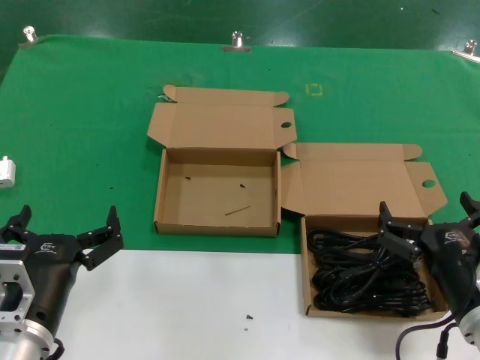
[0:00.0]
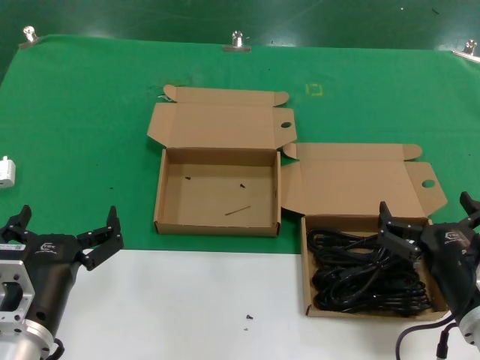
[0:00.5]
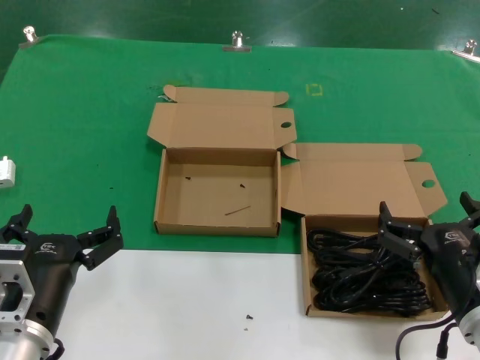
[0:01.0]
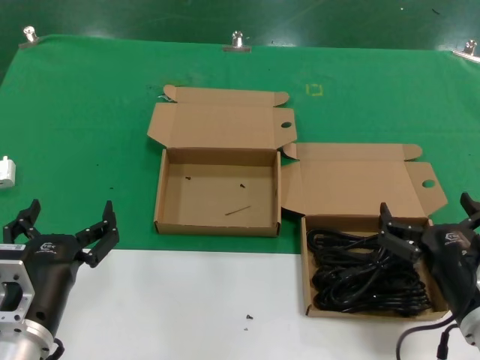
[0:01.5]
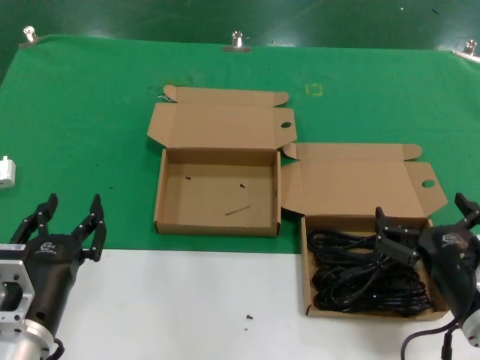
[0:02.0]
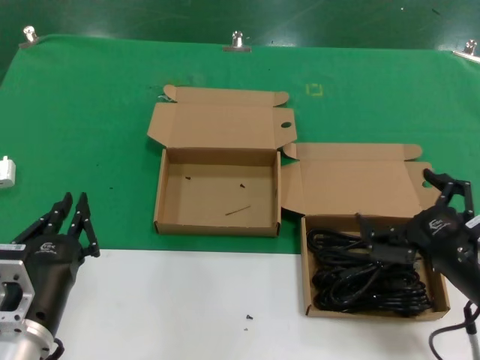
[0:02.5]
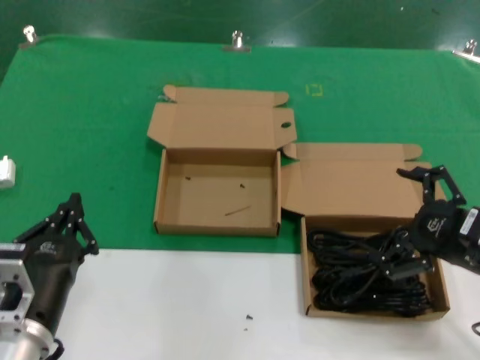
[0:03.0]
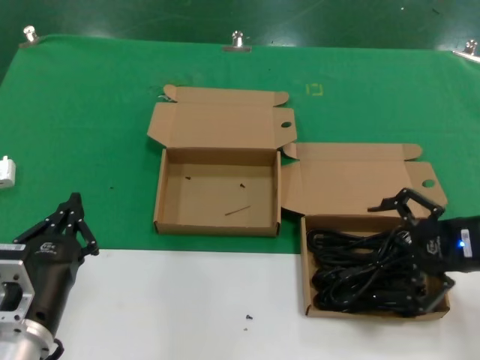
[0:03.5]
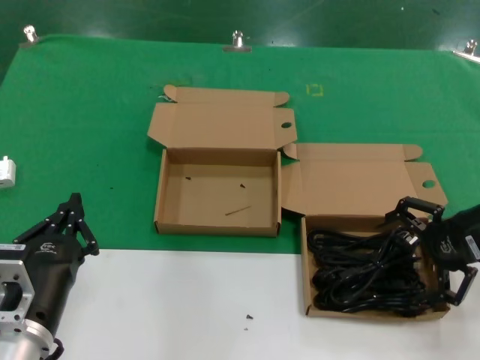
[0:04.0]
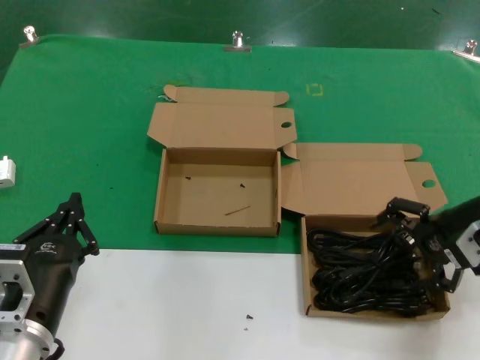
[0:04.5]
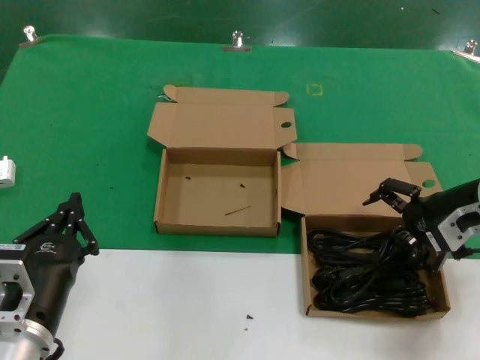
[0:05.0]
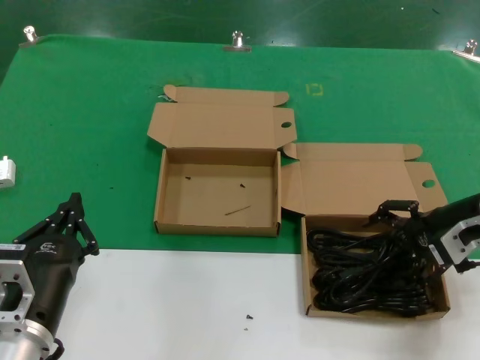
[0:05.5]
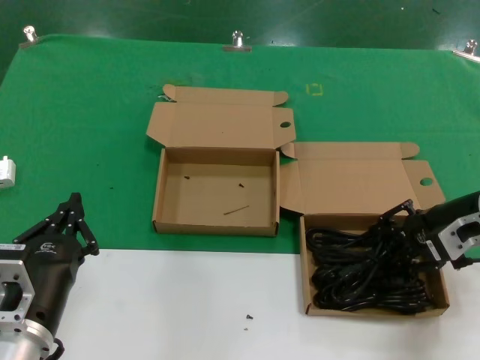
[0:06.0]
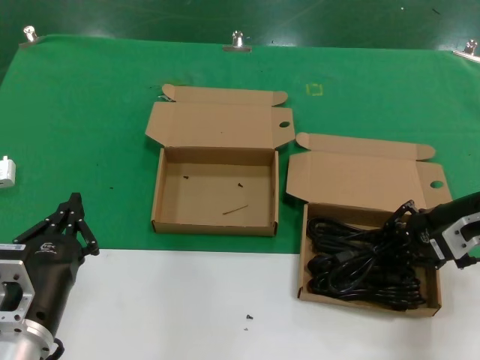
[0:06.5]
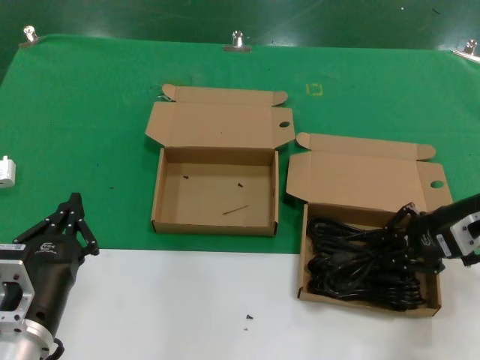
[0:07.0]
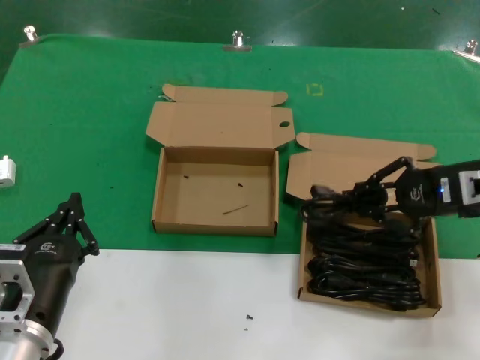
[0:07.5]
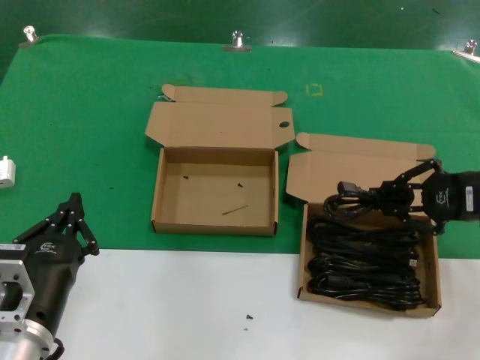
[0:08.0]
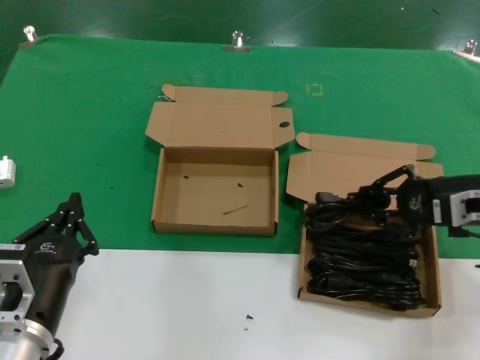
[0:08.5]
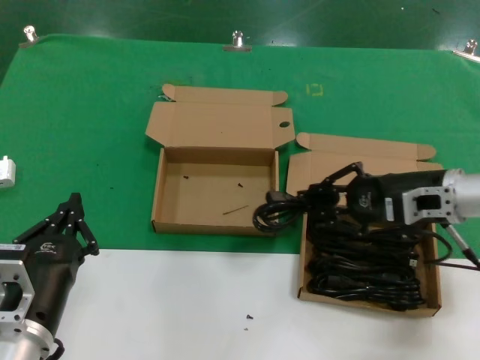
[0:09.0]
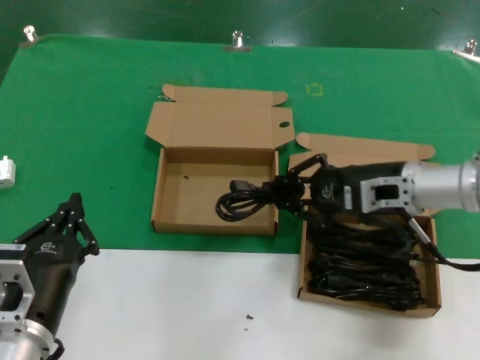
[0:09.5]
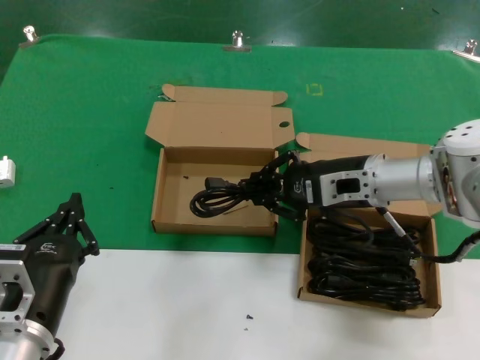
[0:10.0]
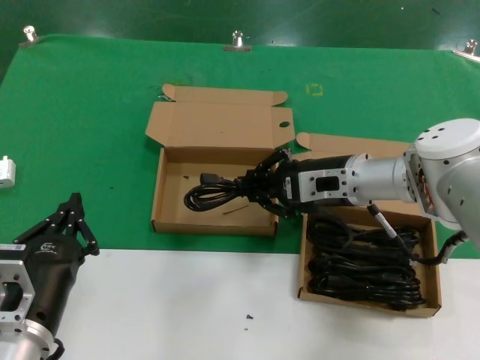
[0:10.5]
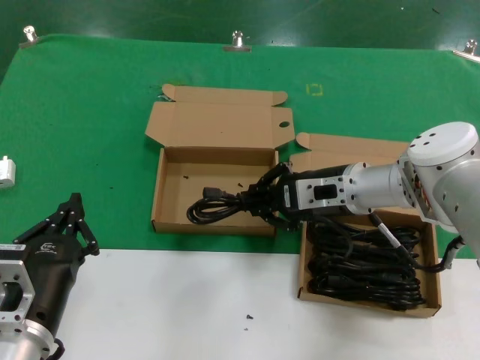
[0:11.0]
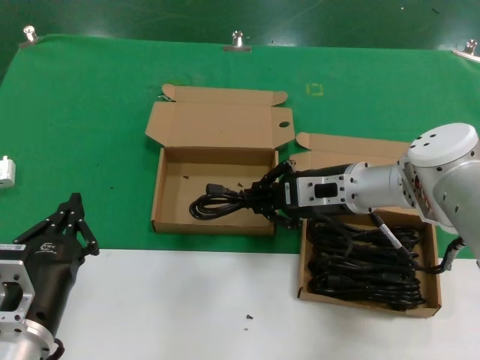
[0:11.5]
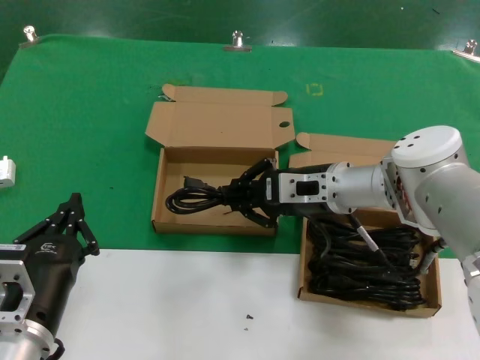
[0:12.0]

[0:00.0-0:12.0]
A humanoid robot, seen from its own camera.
Task of the whole recording: take the parts from the box containing them and put them into an empty box.
Step, 0:00.0 to 0:06.0: Grasp the data cable.
0:00.0 to 0:02.0: Both hands stay about where they are.
0:02.0 to 0:04.0: The right hand goes approximately 25 cm forward, upward and to the right.
0:04.0 to 0:06.0: The right hand shifts by about 5 cm.
0:06.0 to 0:08.0: The right hand changes place by some 5 cm.
0:08.0 to 0:10.0: The right hand moves to the left, approximately 20 cm.
0:10.0 to 0:12.0: The right hand travels to the left by some 5 cm.

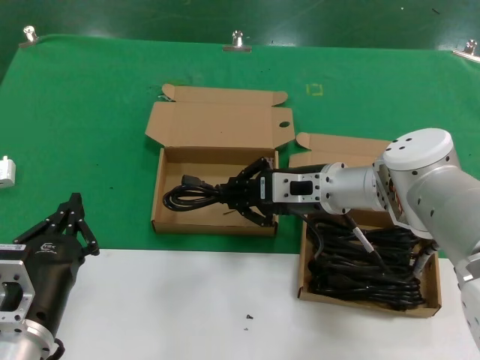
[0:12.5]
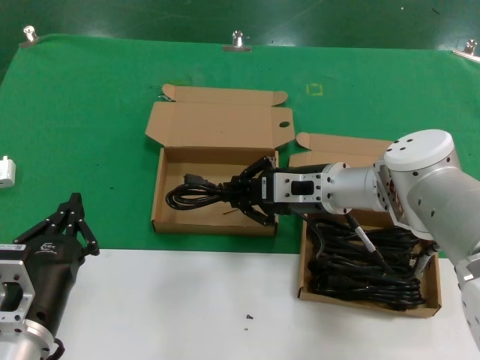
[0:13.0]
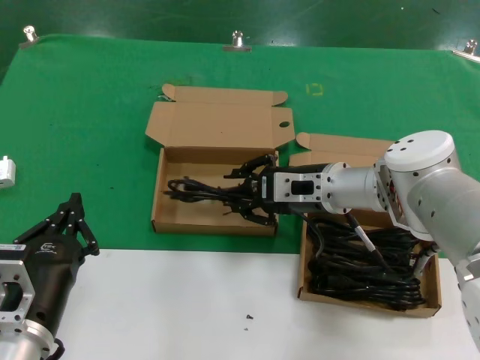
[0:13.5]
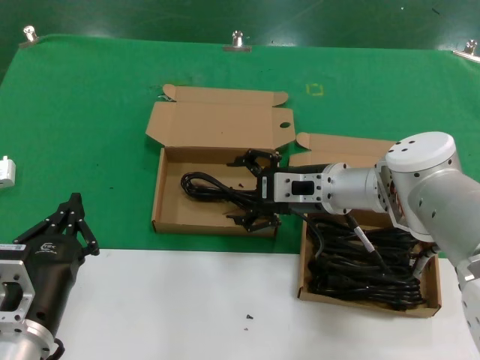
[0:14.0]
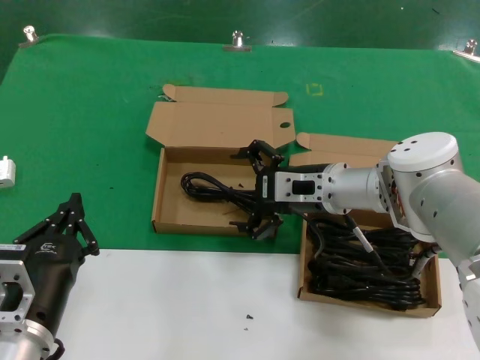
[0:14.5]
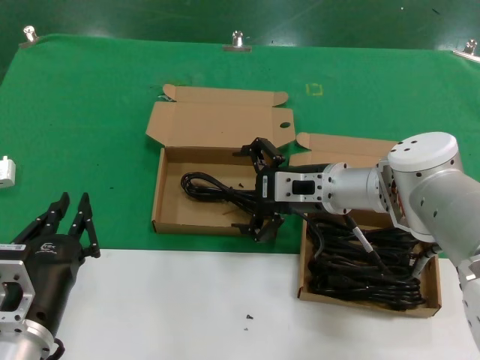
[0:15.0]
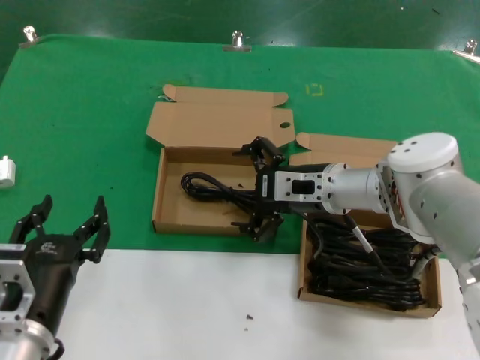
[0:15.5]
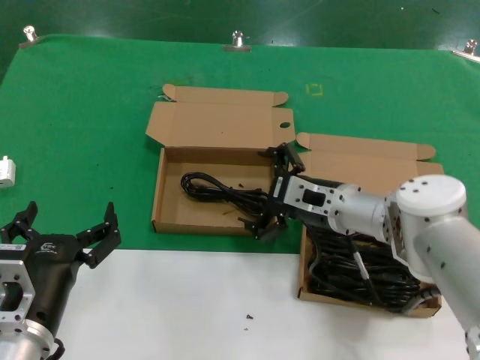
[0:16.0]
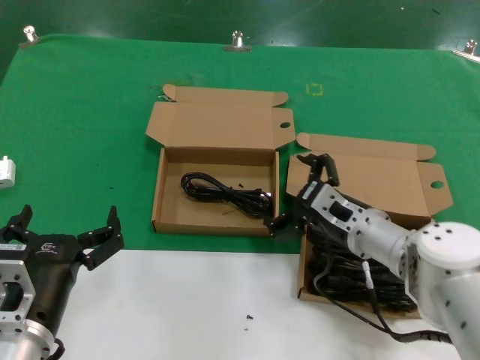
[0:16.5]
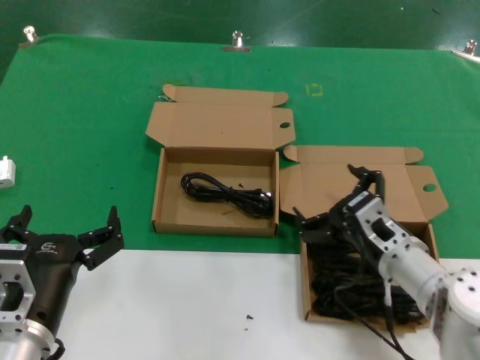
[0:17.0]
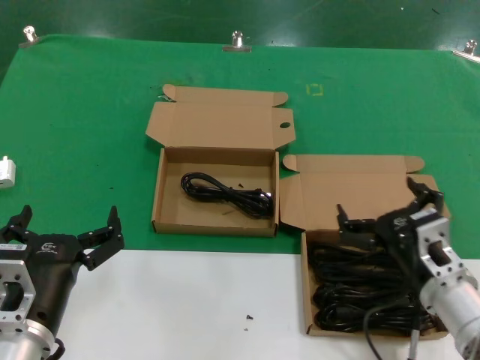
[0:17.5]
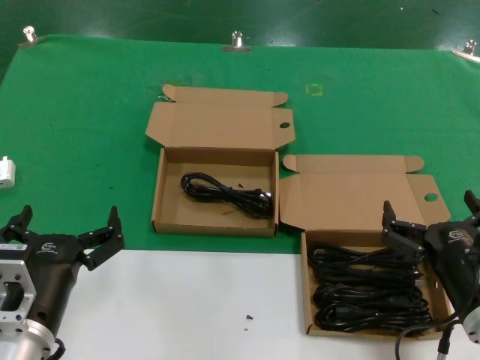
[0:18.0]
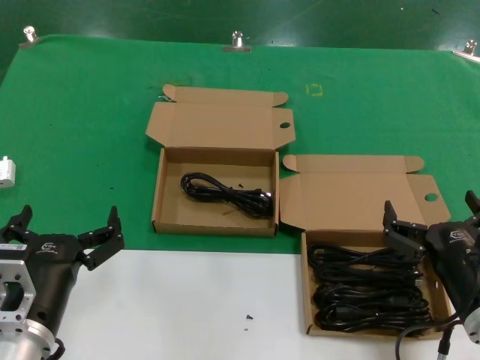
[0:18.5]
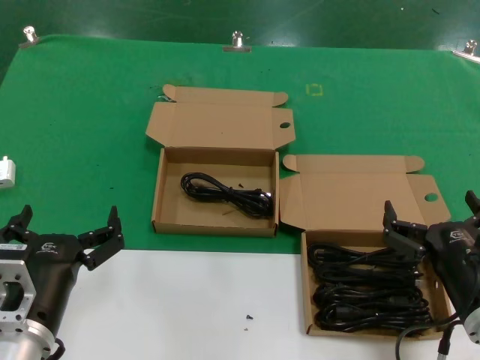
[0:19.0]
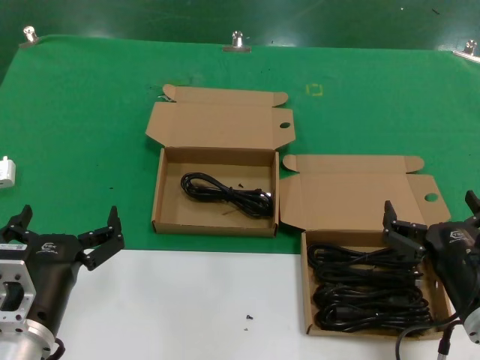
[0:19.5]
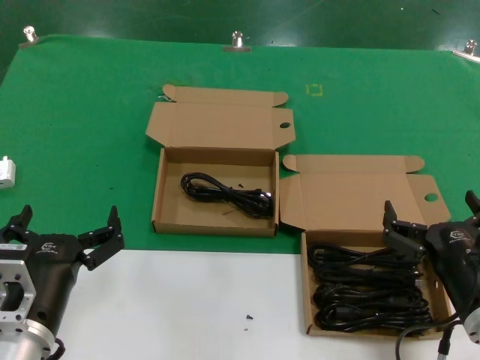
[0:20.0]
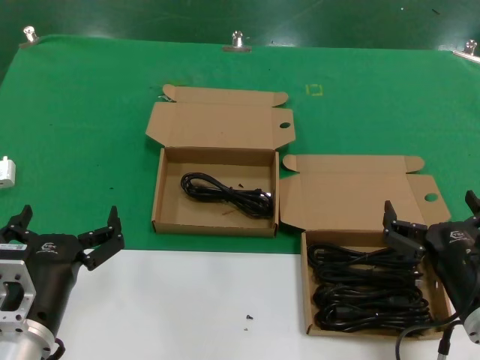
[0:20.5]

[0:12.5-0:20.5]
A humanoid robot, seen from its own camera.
Task of the whole recording: take the parts from the box containing them and put them into an empty box.
0:12.5 to 0:14.5: The two hands keep their place.
0:14.5 to 0:16.5: The right hand is displaced downward by some 10 cm.
0:16.5 to 0:18.5: The right hand shifts approximately 20 cm backward and to the right.
0:18.5 to 0:20.5: Neither hand changes place.

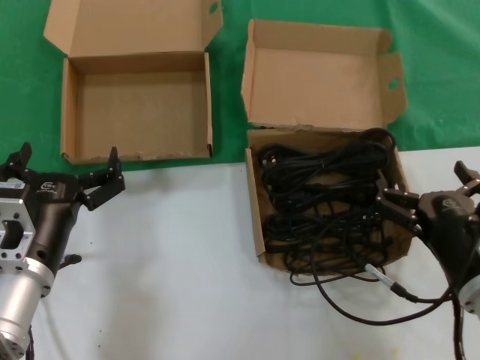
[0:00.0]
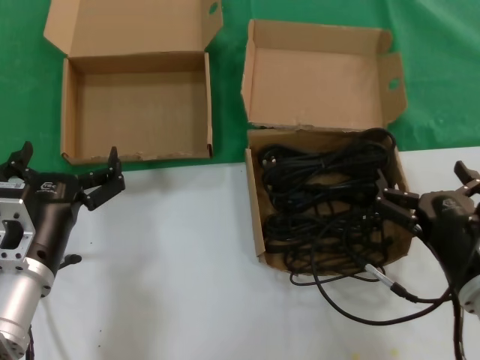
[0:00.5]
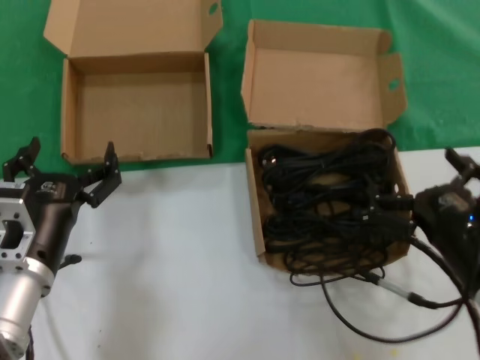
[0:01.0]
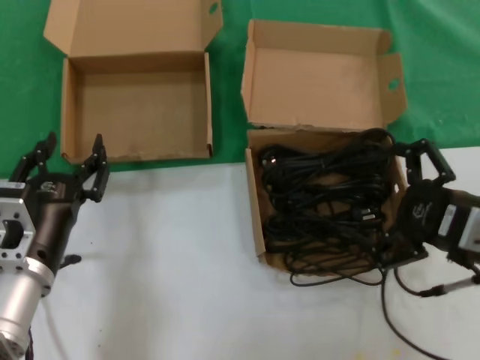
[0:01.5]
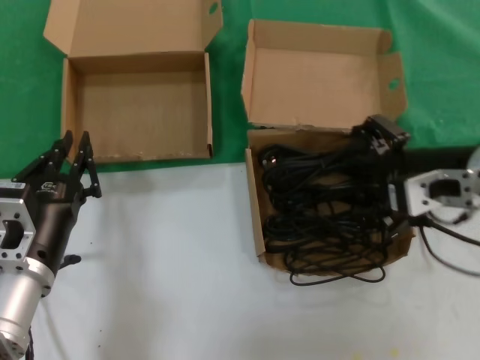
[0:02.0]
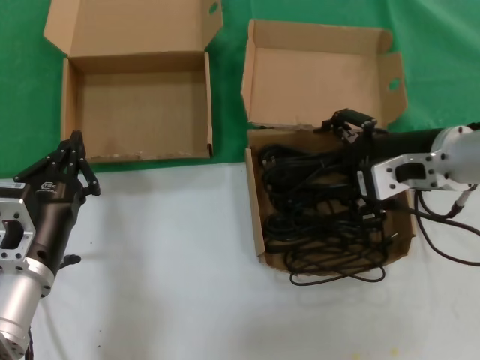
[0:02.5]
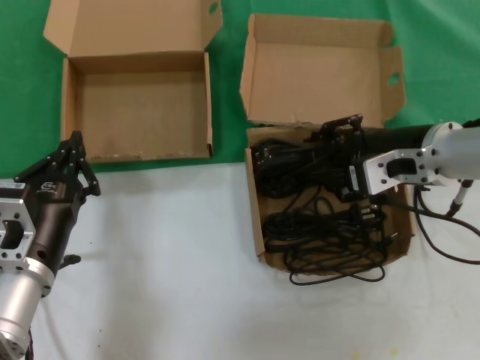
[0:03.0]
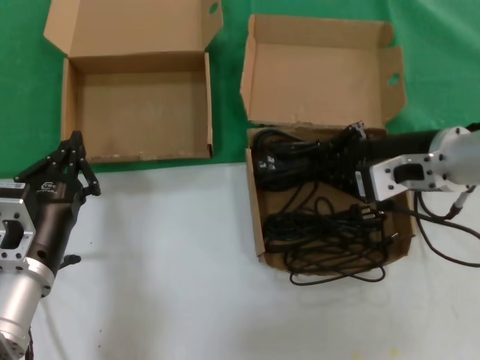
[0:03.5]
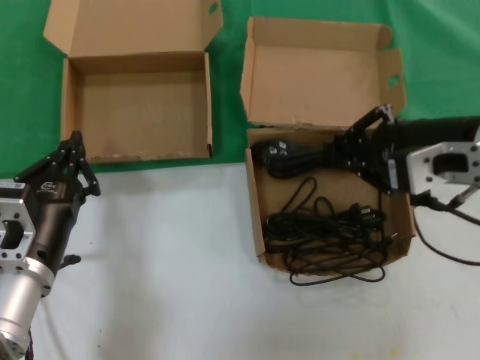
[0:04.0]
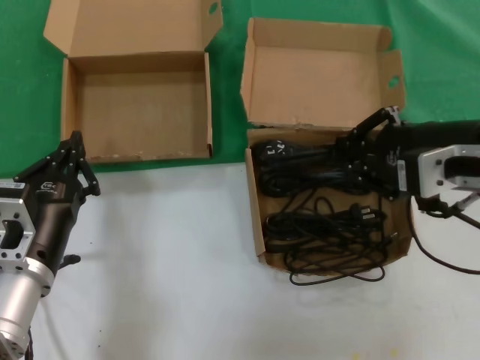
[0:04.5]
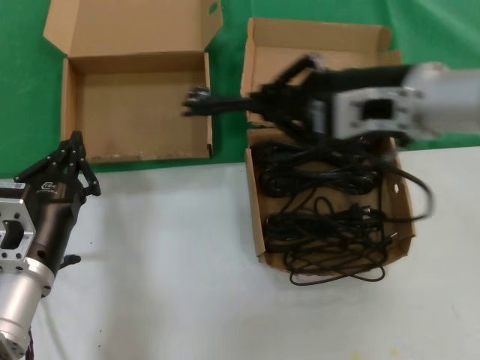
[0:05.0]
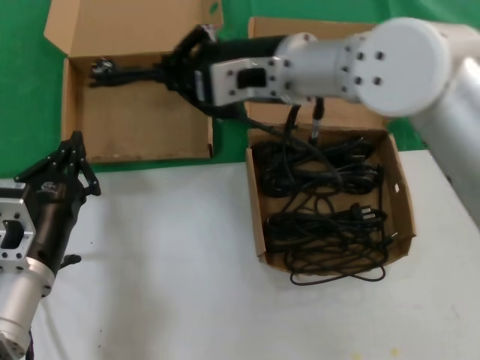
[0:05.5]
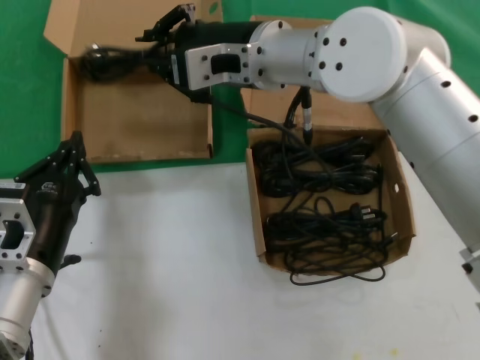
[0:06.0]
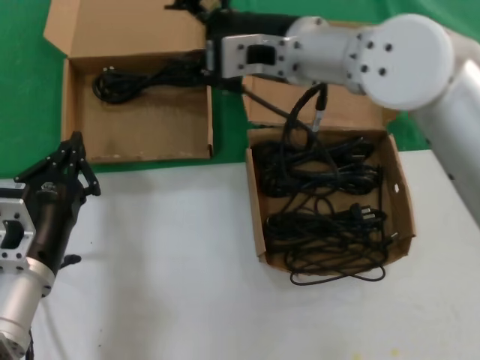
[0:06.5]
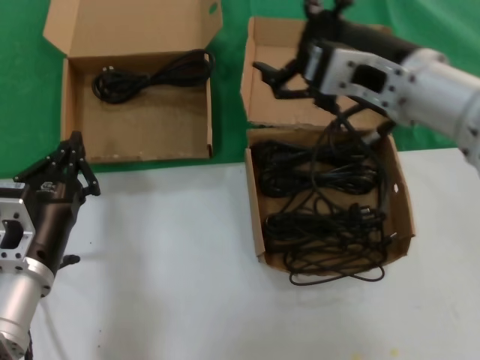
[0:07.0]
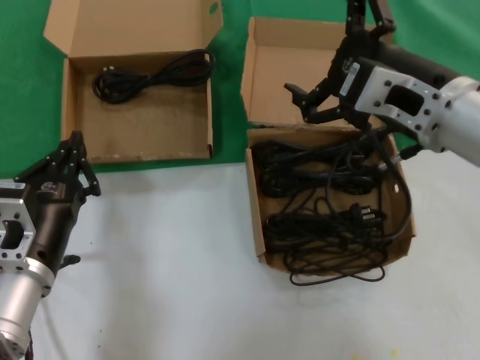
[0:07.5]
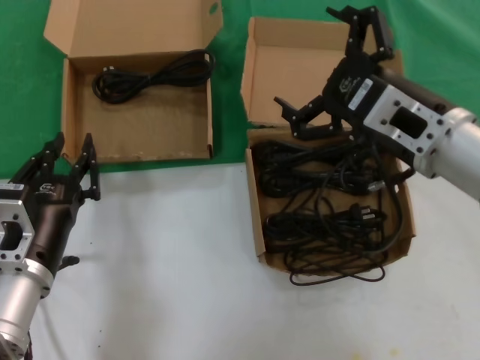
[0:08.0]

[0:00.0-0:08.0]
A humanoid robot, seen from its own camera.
Task of the whole recording: take the parts from the box containing them and put them into an empty box.
Step, 0:00.0 to 0:03.0: Grasp the data cable.
Step, 0:03.5 to 0:06.0: Place the data cable in the another box.
0:00.0 to 0:02.0: The right hand moves upward and forward, about 20 cm.
0:02.0 to 0:04.0: The right hand moves about 5 cm.
0:04.0 to 0:06.0: The right hand moves to the left and forward, approximately 25 cm.
0:06.0 to 0:08.0: The right hand heads to the right and backward, covering roughly 20 cm.
